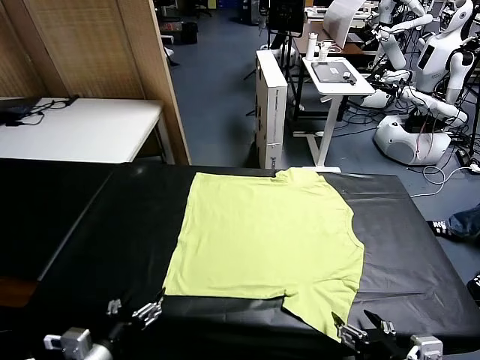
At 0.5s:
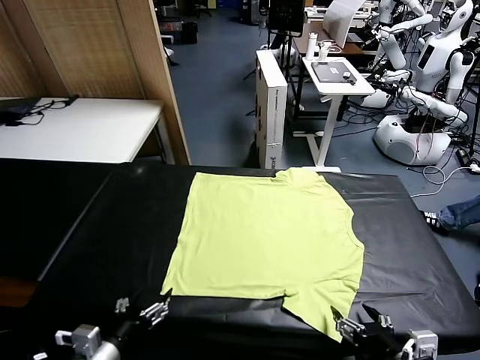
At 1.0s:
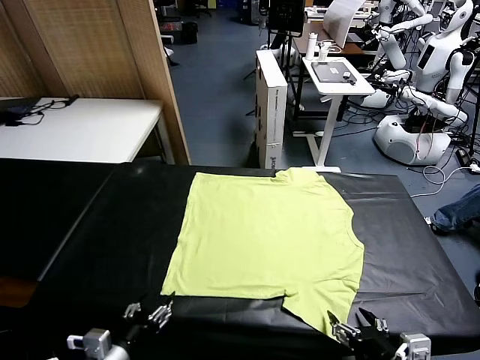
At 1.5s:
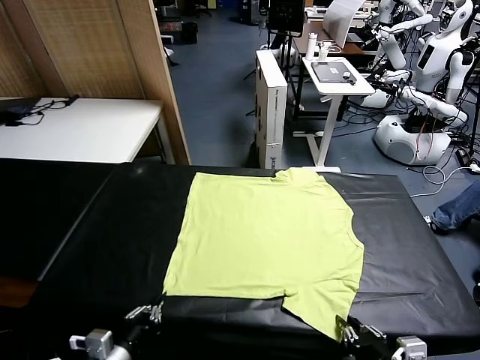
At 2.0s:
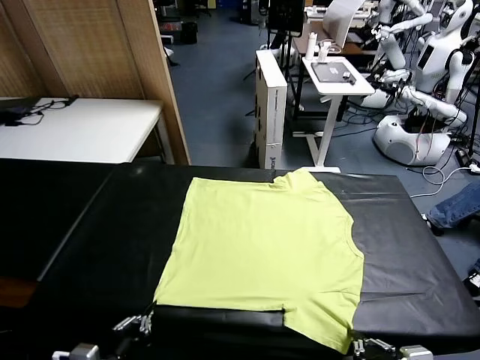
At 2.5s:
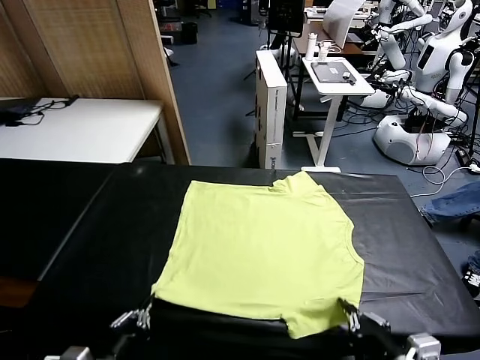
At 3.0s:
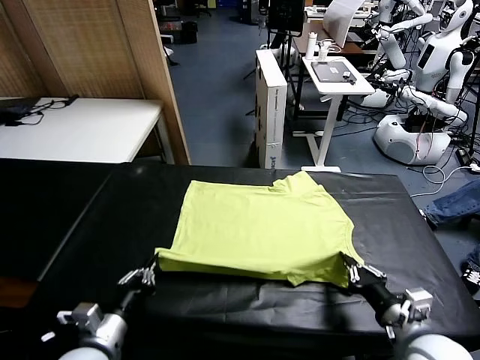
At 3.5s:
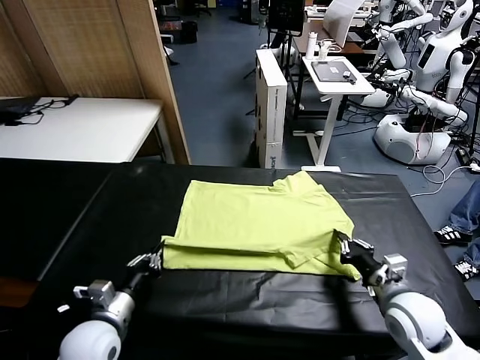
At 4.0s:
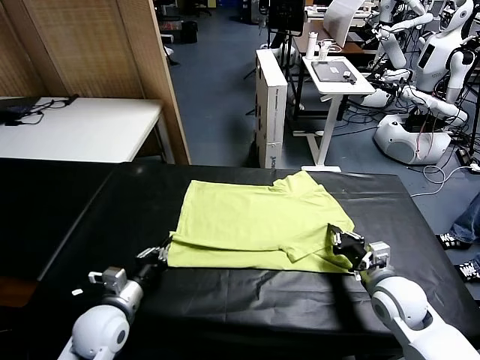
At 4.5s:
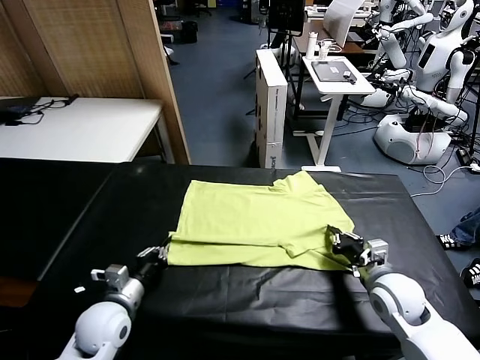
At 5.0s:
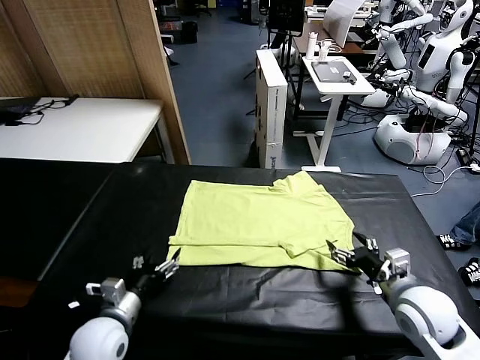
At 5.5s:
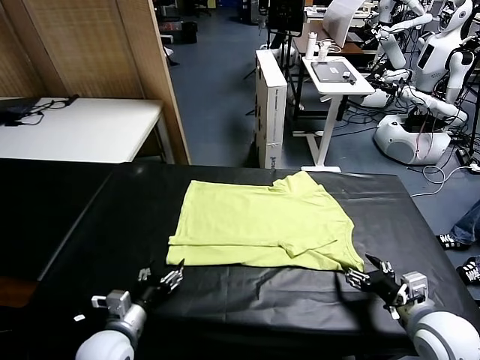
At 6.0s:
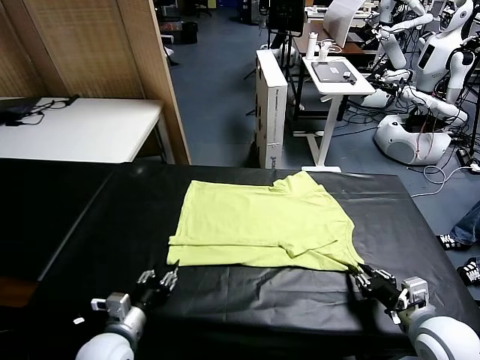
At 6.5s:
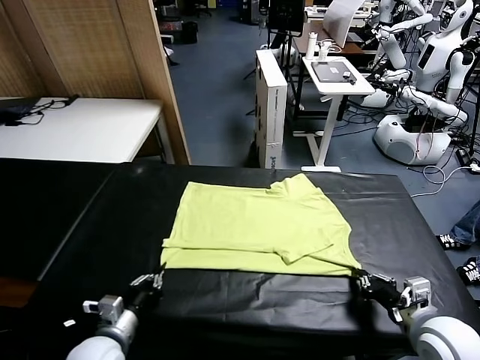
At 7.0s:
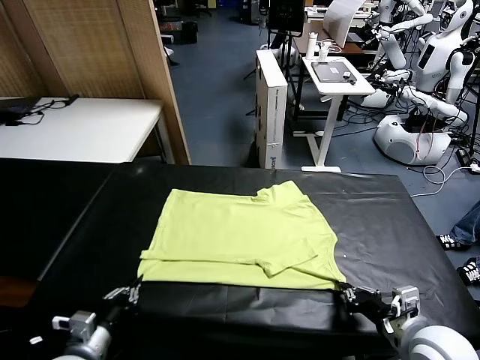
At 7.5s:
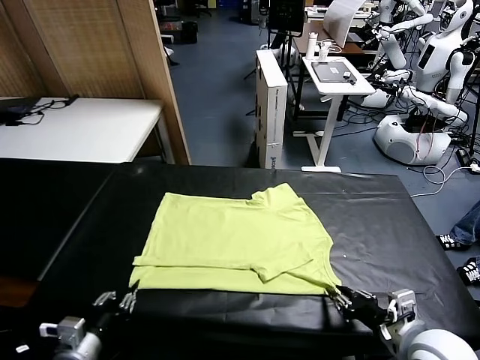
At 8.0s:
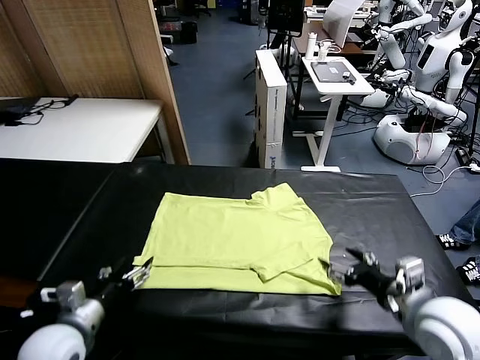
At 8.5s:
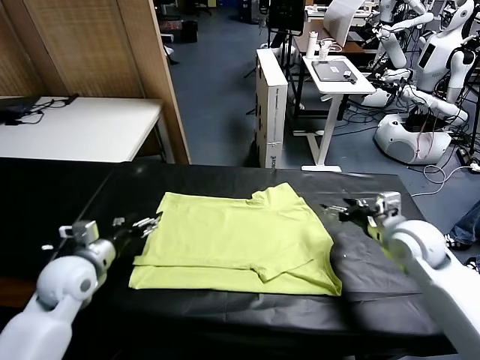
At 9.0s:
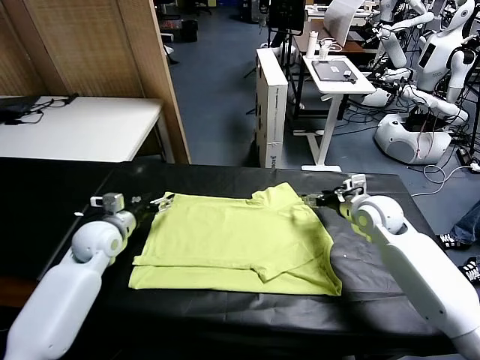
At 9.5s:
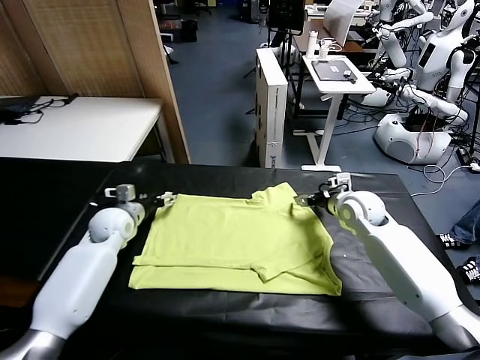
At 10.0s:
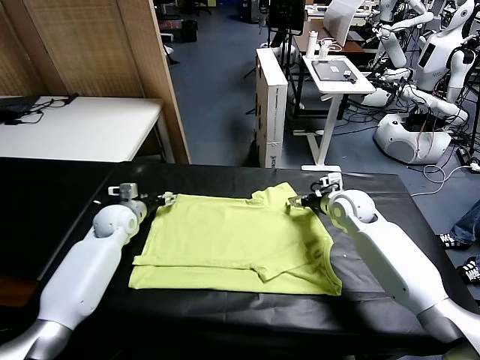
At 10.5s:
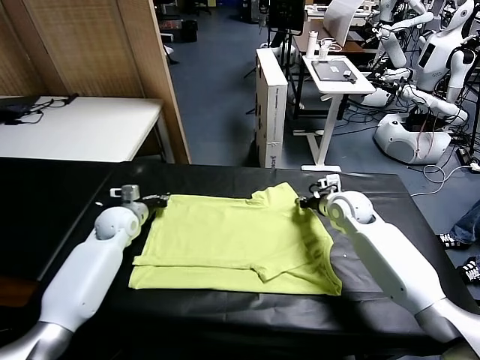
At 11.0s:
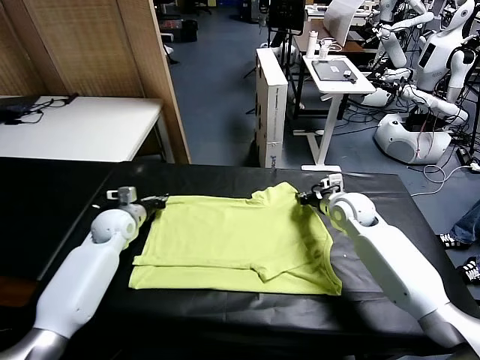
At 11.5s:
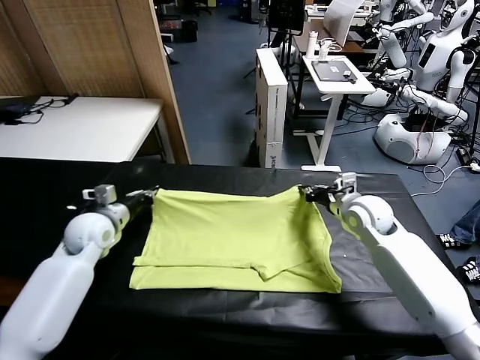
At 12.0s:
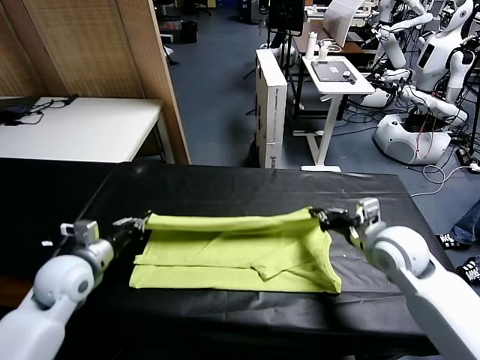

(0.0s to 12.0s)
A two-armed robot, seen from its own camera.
Task of the whole recording: fold and organize the clothes.
Step, 0.0s - 2.0s: use both grippers simultaneously to clamp the lower edge of the clothing fabric.
Step, 2.5s - 4.5s: use both grippers to drag the lower edge of the fabric forward and fold it over the upper edge.
Step, 5.0s - 7.5s: Drag the clothes downward with both gripper.
Step, 8.0s - 10.5s: use both grippers simultaneously to clamp the upper edge of the clothing fabric.
2.0s - 4.0s: The grippers both shift forward by approximately 20 cm.
4.0s - 6.0s: The left gripper heads backward, covering roughly 5 cm, and opens and closes again; the right gripper is displaced backward by approximately 10 cm, and opens, then closes once more.
6.0s - 8.0s: The right gripper is displaced forward and upward by approximately 15 cm, and opens, while the left gripper heads upward and to the left, covering approximately 10 cm, and opens.
8.0s - 10.0s: Both grippers travel together forward, about 25 cm. The right gripper closes its fingers.
10.0s - 12.0s: The grippers both shift backward by roughly 20 cm. The right gripper closes its fingers. Meanwhile the left gripper closes its fingers.

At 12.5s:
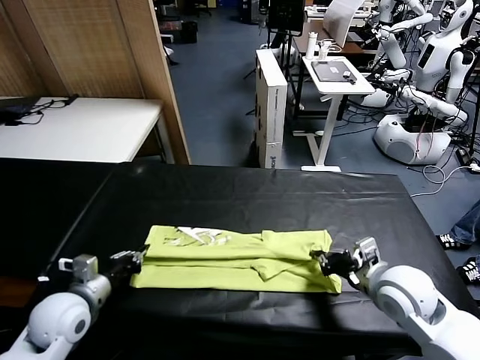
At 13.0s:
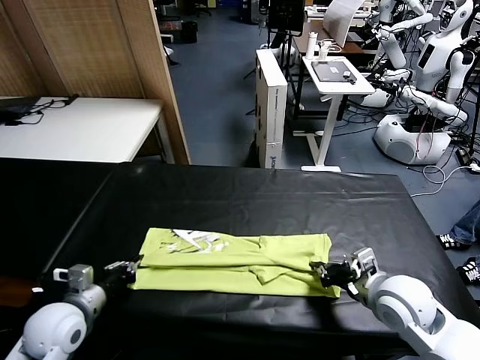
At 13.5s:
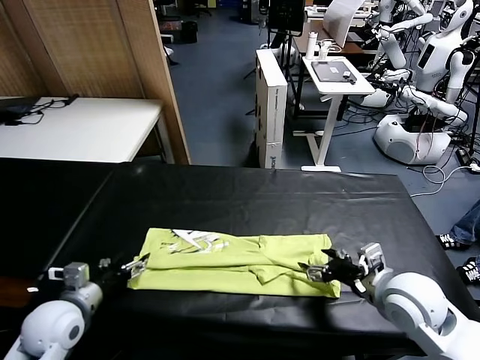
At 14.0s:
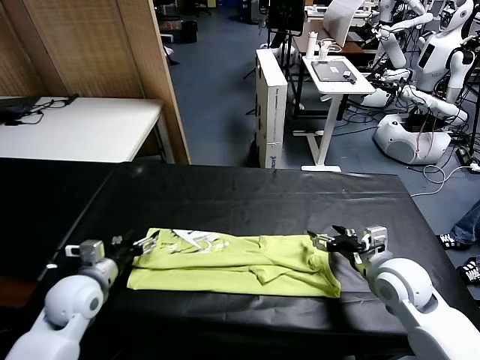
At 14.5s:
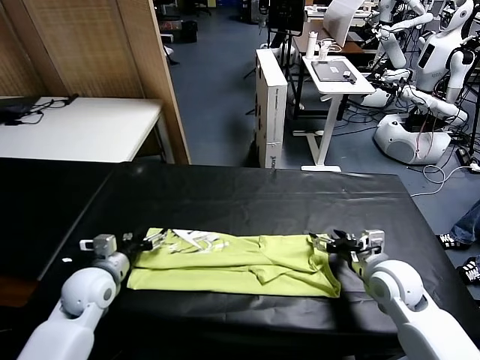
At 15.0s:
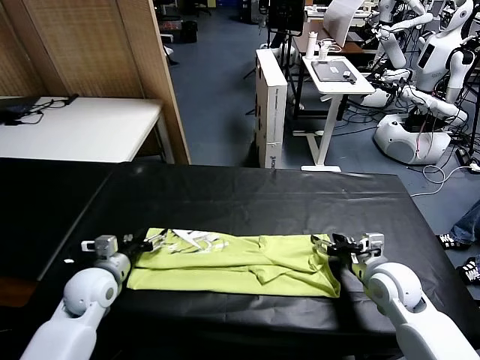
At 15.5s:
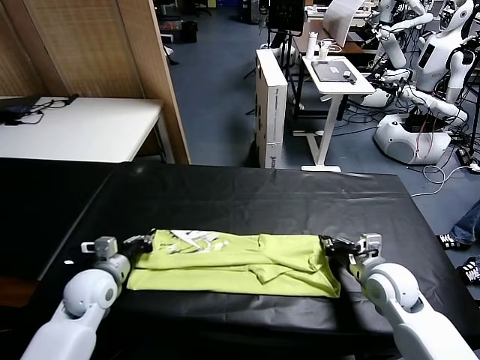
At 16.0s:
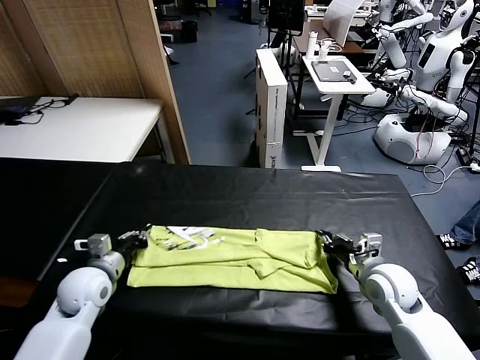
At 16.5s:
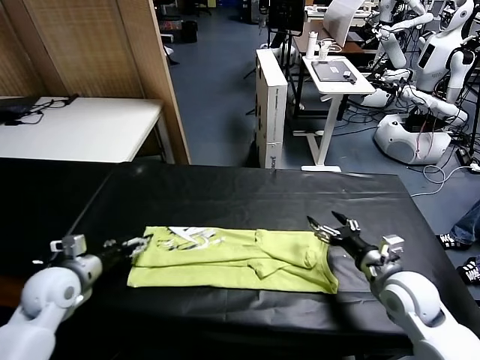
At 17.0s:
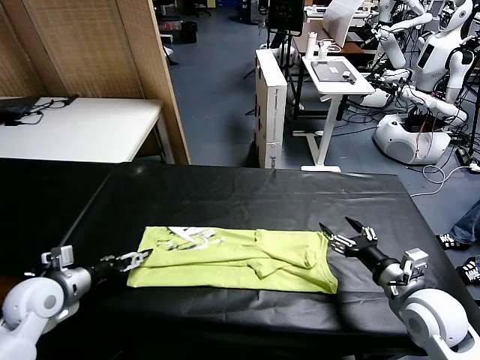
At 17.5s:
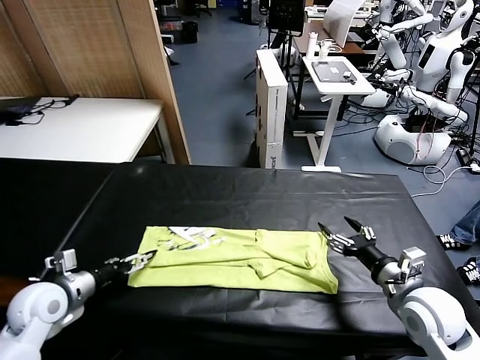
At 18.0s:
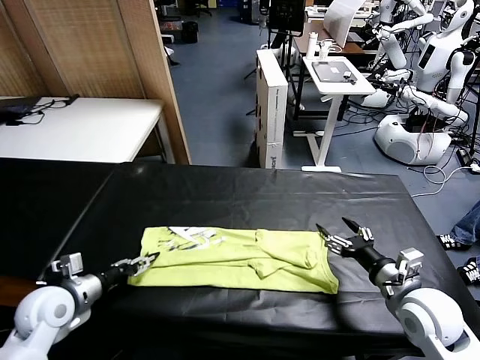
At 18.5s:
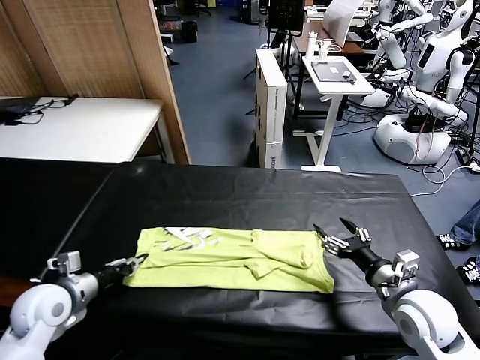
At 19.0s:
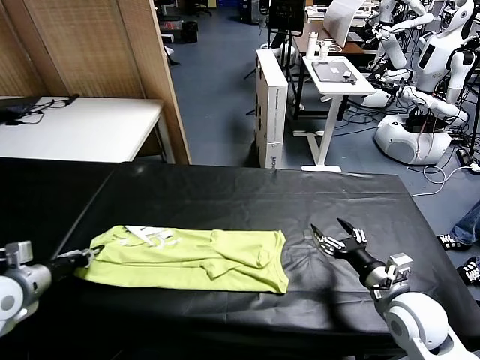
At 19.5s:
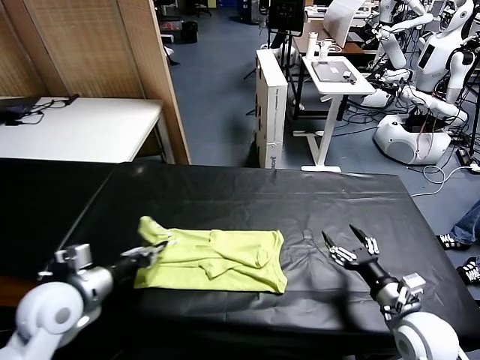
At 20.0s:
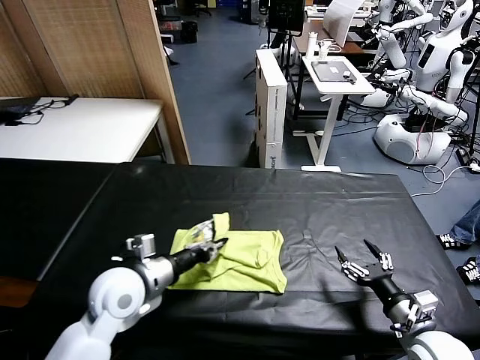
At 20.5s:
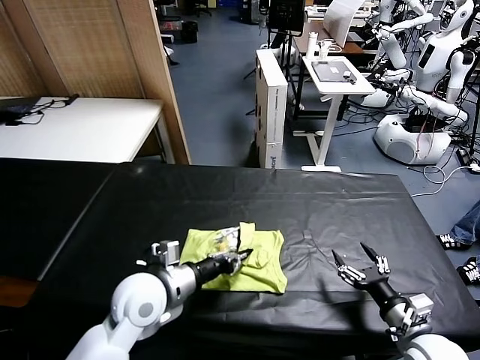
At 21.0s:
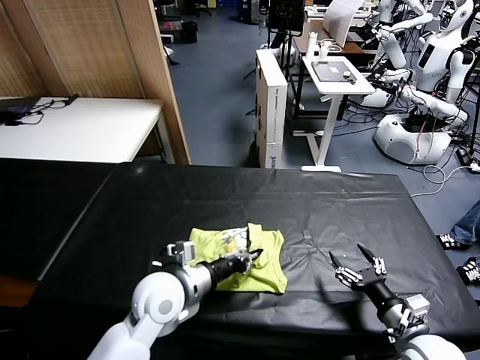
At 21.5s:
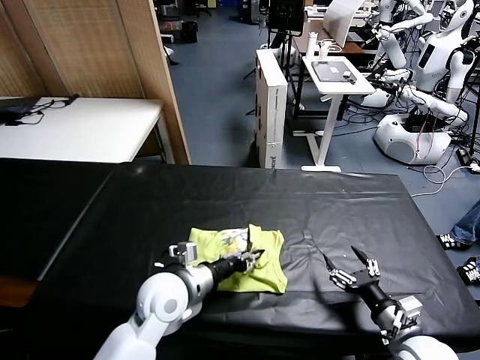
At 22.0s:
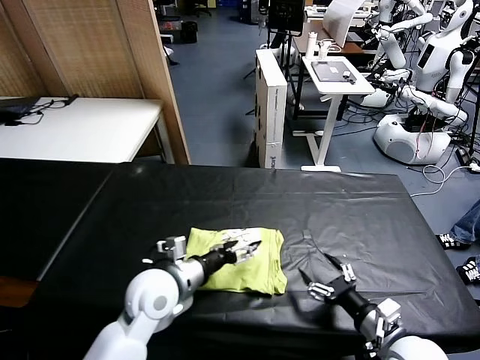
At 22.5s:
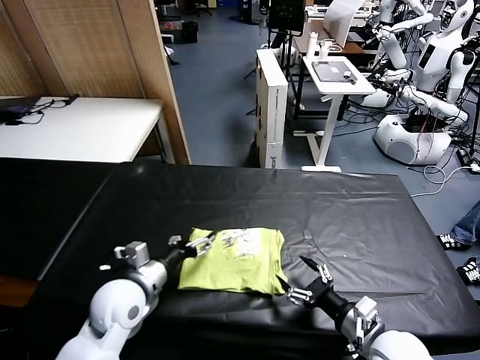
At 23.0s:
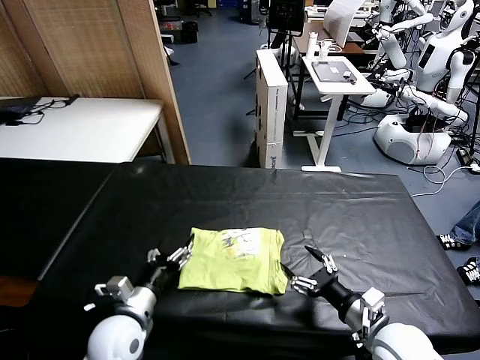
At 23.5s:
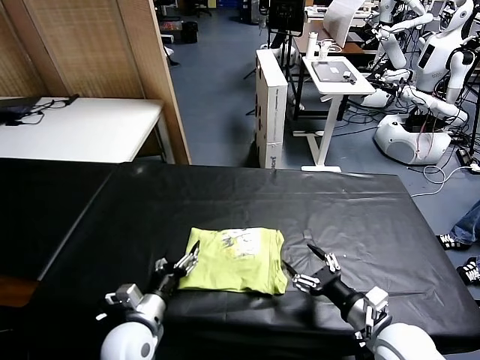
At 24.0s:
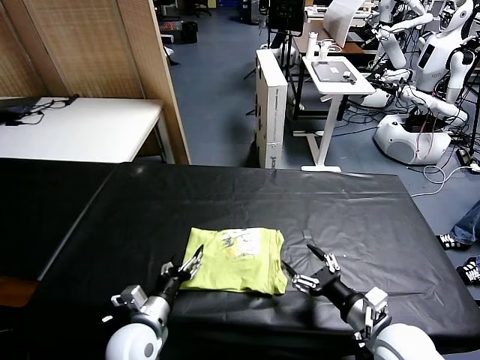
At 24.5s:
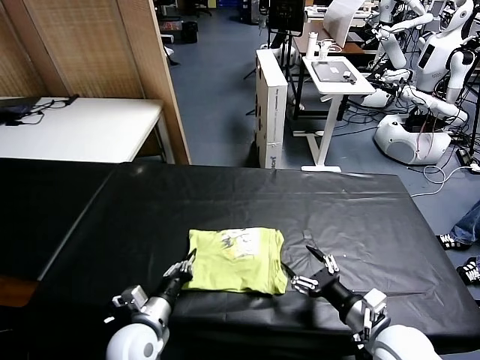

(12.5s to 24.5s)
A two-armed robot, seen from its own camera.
Task of the whole recording: fold and organize the clothes.
Step, 13.5s - 18.0s: use the left gripper to clamp the left edge of the fabric.
Step, 18.5s - 21.5s: use the left gripper to drag the left edge of the fabric to the left and folds it over the right edge.
12.5s - 14.5s: The right gripper shifts by about 5 cm, and opens, while the left gripper travels forward by approximately 5 cm, and opens its fingers.
14.5s - 16.5s: The left gripper heads to the left, covering approximately 10 cm, and closes and opens again; the right gripper goes about 5 cm backward, and closes and opens again.
16.5s - 18.5s: The left gripper closes its fingers.
18.5s - 20.5s: The left gripper moves to the right, approximately 20 cm. Meanwhile the right gripper travels backward and downward by about 10 cm.
20.5s - 22.5s: Both grippers move to the left, some 5 cm. The left gripper opens its fingers.
22.5s - 24.5s: The left gripper is displaced downward by some 5 cm, and closes.

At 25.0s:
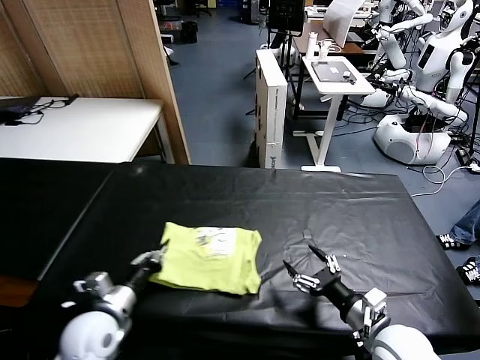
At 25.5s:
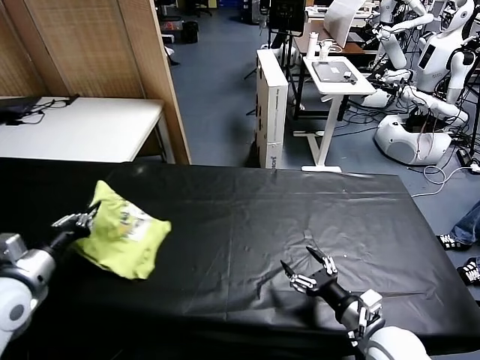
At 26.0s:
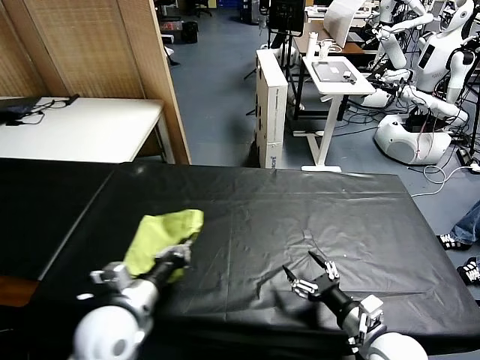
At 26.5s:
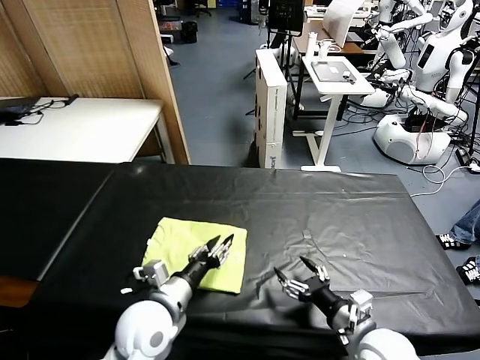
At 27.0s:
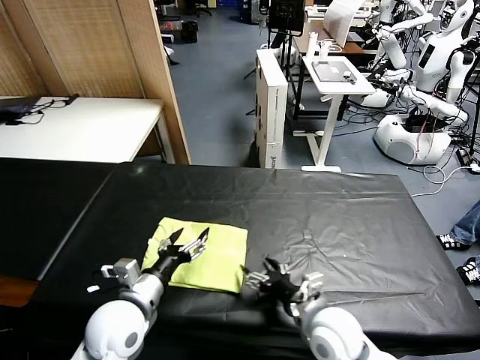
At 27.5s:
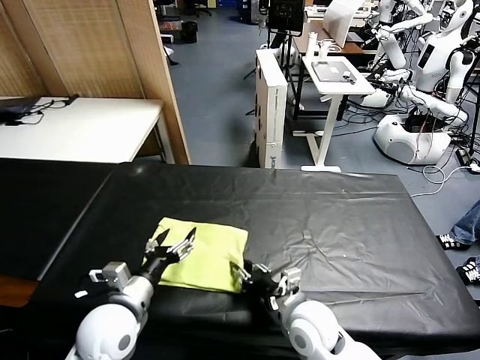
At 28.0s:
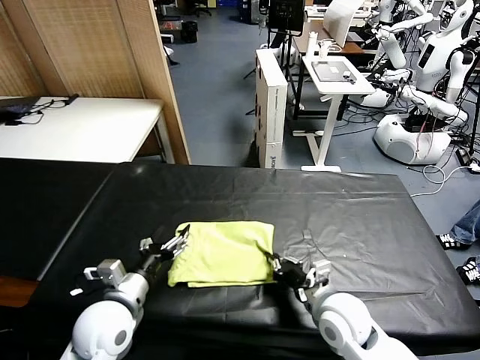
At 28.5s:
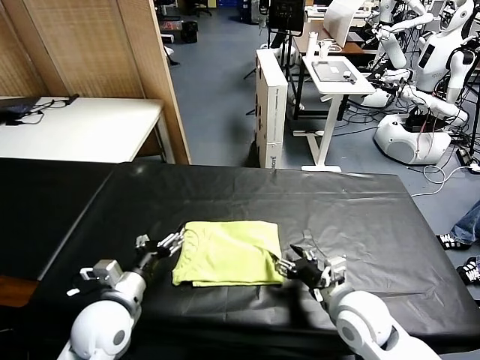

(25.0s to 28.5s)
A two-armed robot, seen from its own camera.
Task of the whole recording: fold and organize the clothes.
25.0s - 27.0s: The right gripper goes roughly 15 cm to the left, while the left gripper goes left and right, roughly 20 cm each way, reversing 2 times, and opens up.
27.0s - 28.5s: The right gripper moves to the right, some 10 cm, and closes, then opens again.
